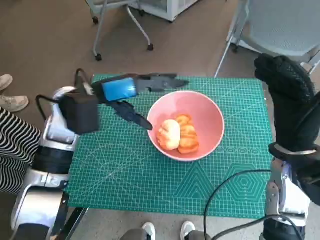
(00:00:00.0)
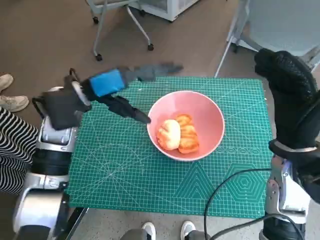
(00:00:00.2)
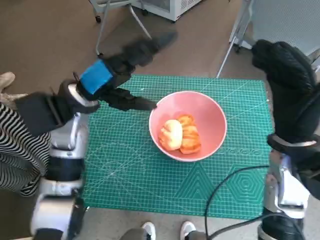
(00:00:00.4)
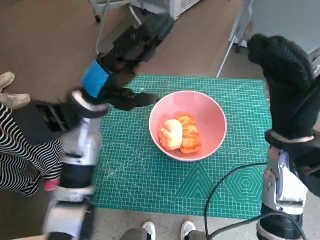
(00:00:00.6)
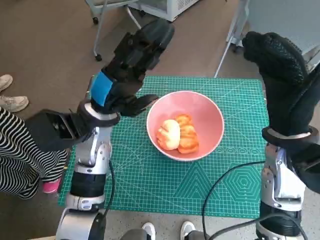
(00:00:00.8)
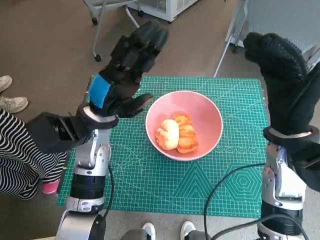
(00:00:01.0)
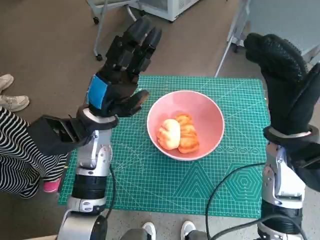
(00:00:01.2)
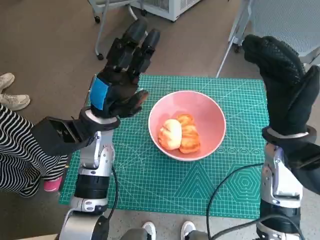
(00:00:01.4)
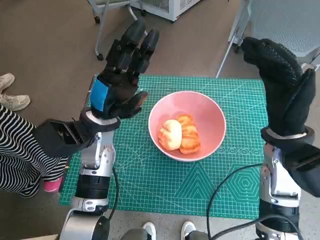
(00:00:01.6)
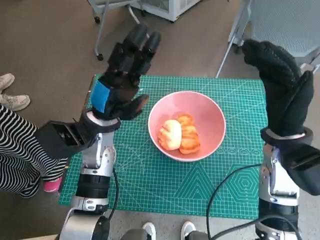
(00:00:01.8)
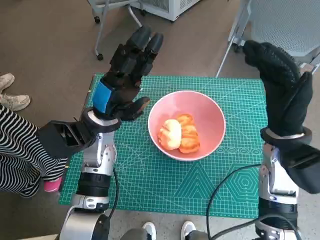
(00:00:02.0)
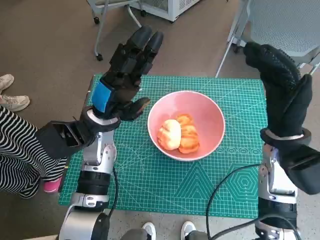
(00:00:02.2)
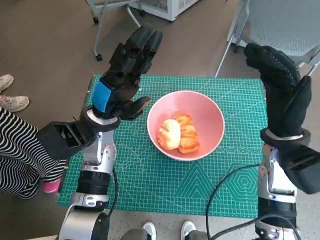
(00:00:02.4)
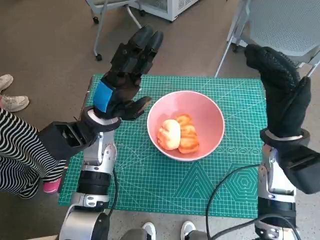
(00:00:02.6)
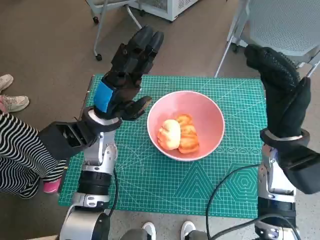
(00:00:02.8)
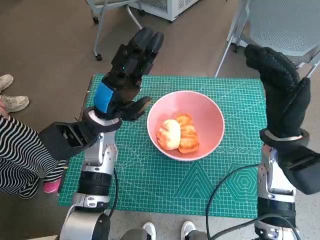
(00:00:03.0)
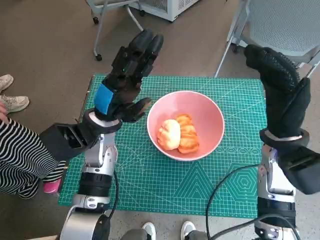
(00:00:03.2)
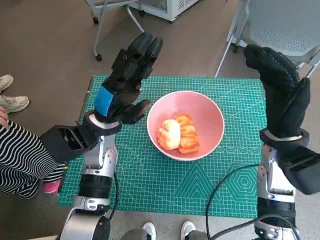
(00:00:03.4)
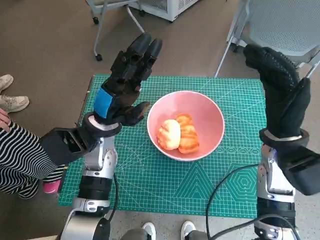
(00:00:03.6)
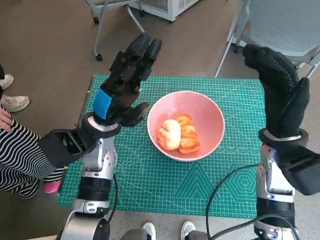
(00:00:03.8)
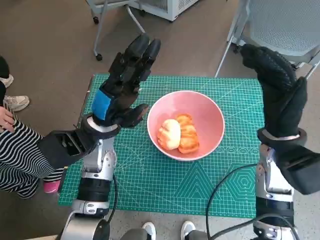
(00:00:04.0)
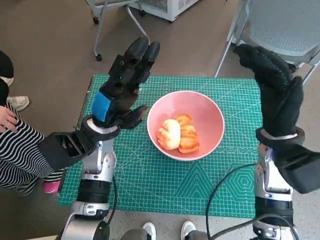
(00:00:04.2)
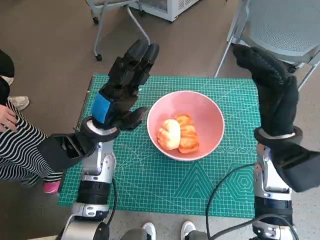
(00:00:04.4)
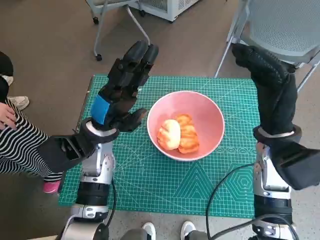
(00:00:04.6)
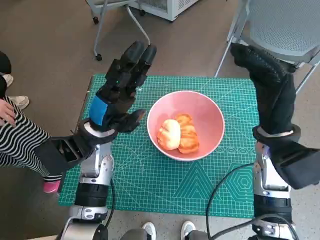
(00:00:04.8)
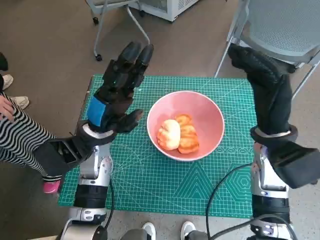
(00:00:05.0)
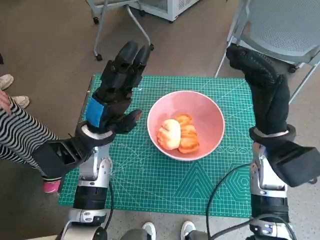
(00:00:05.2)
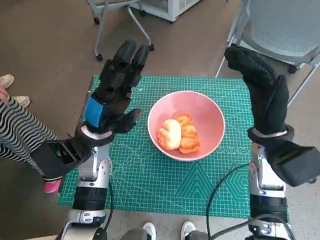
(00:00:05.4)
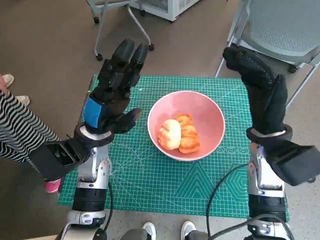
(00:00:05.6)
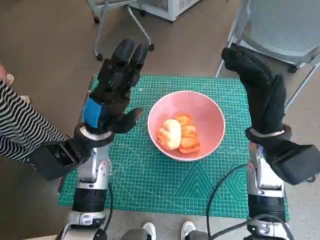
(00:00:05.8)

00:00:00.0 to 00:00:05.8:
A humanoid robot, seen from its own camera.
Task of the whole recording: Push the bowl into the center of the table and put the bread into the bowl.
00:00:00.0 to 00:00:01.4: The left hand goes some 5 cm downward.
00:00:01.4 to 00:00:04.4: The hands make only small movements.
